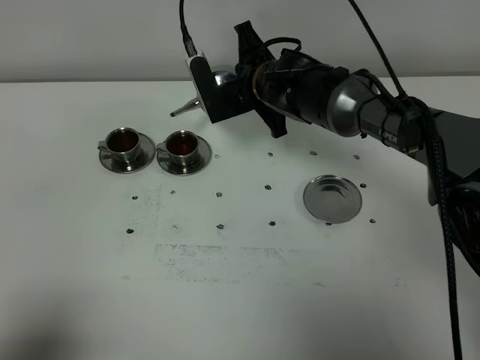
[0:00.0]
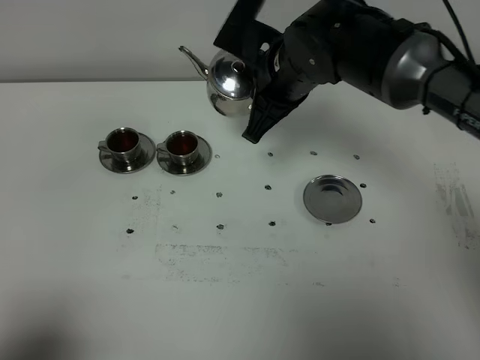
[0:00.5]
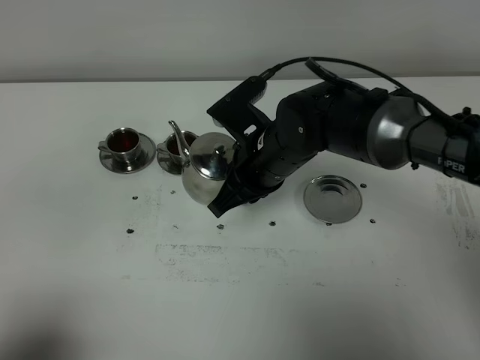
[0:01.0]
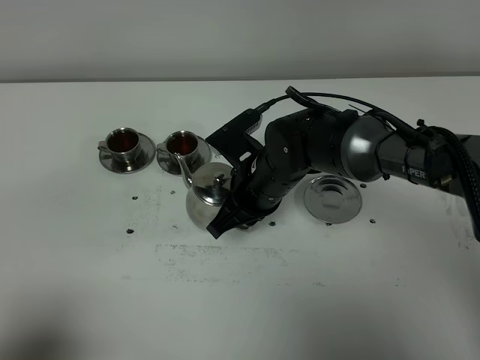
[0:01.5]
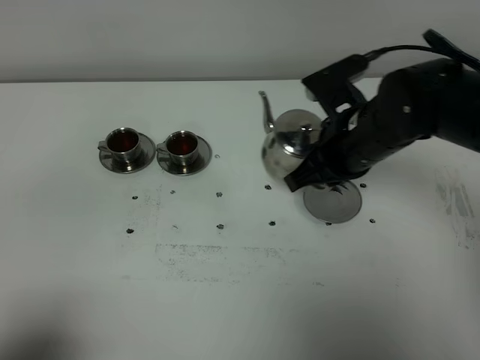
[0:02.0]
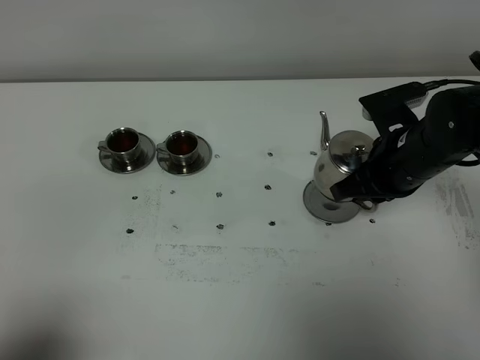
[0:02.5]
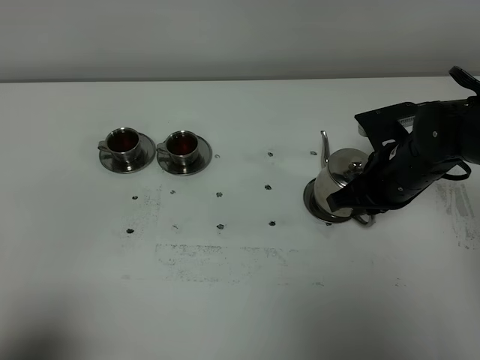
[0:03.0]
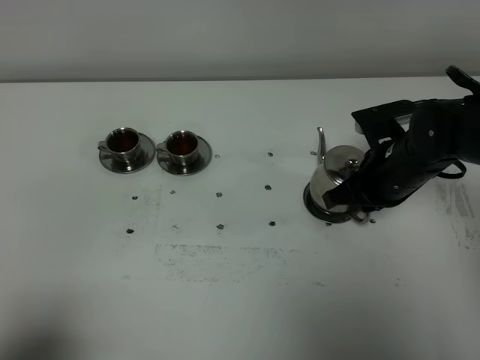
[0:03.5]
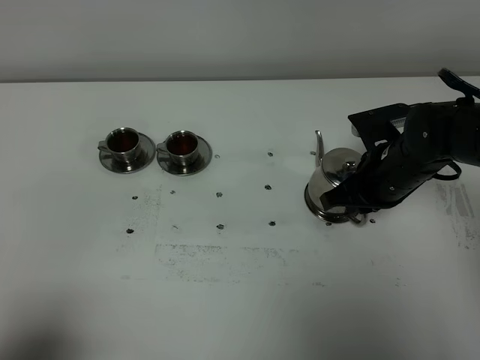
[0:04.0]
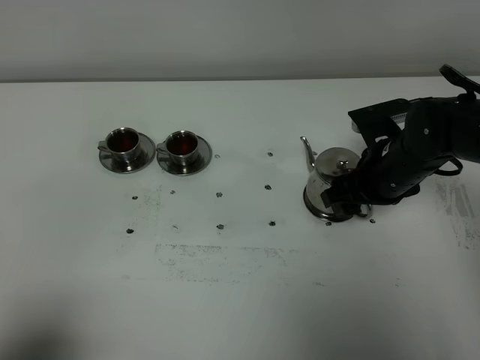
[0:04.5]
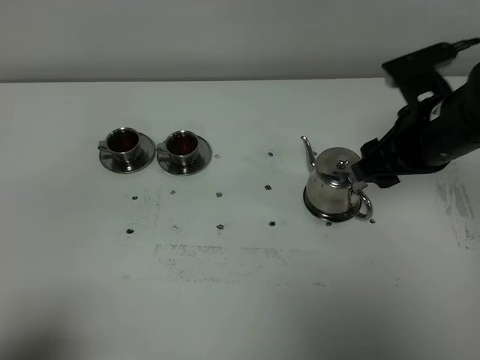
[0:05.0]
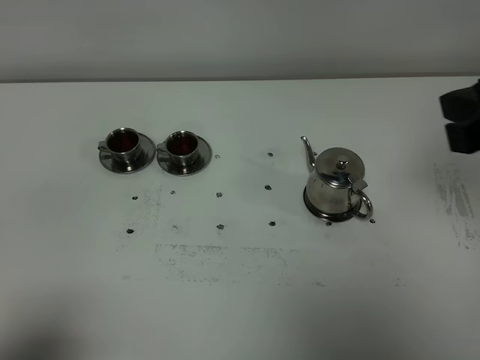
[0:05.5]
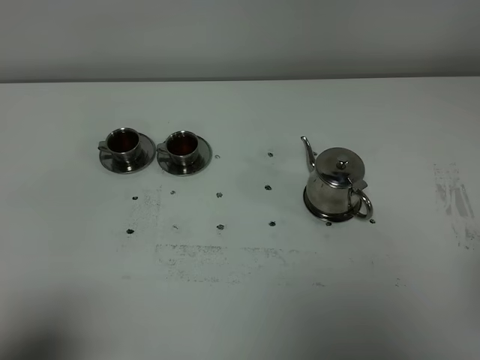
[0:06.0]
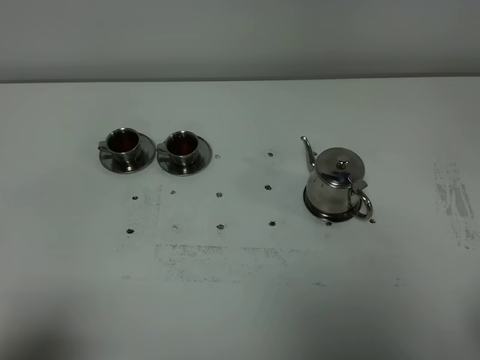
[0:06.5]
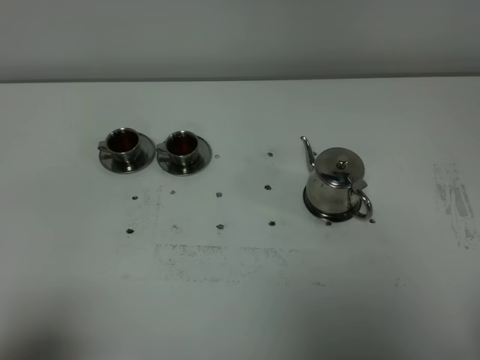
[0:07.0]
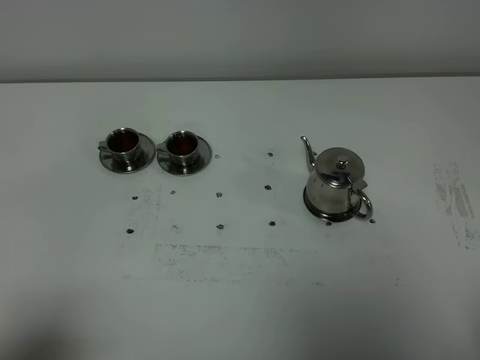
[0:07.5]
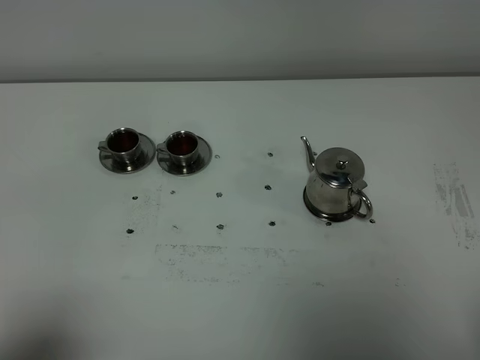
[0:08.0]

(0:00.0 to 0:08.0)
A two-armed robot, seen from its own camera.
Task of the whole recording: grasp the stainless steel teapot and pour the tea into the two stainless steel teacups one by one, put the stainless steel teapot back in its original place.
0:00.0 - 0:02.0: The right gripper moves backward and to the right, roughly 15 cm.
0:02.0 - 0:04.0: The right gripper moves downward, roughly 5 cm.
0:04.0 - 0:06.0: The right gripper heads backward and upward, covering approximately 35 cm, and opens, then closes once more.

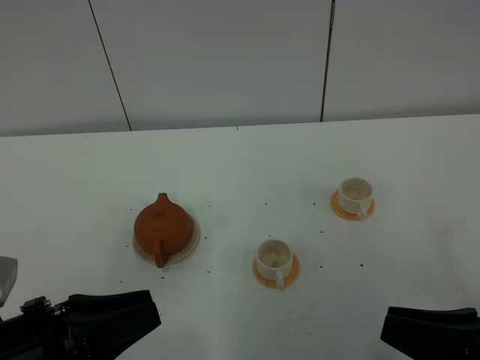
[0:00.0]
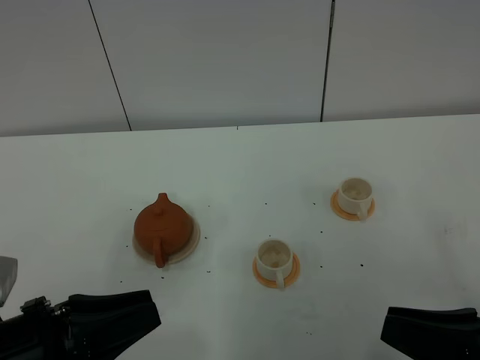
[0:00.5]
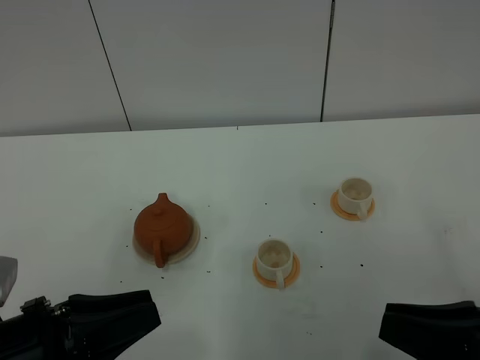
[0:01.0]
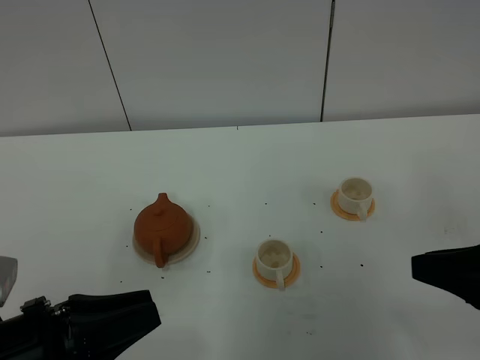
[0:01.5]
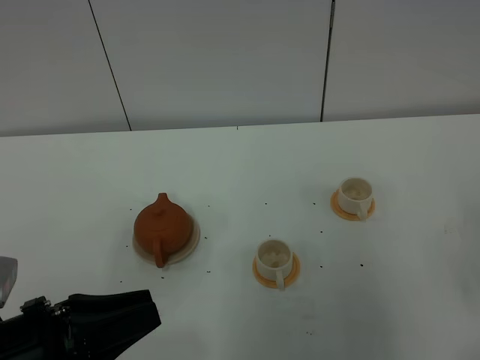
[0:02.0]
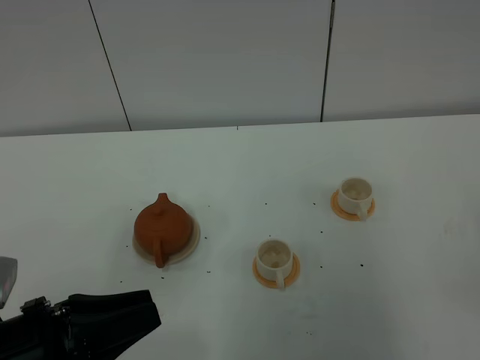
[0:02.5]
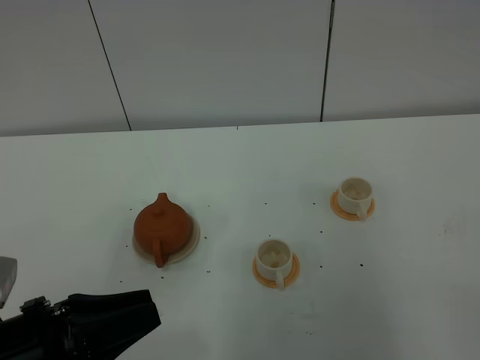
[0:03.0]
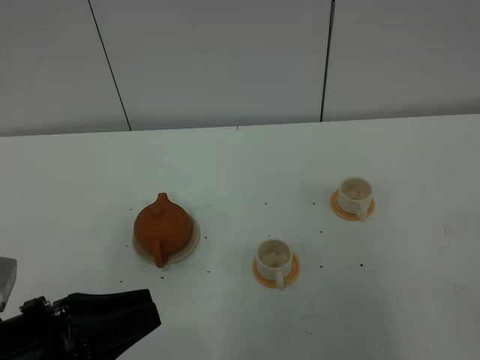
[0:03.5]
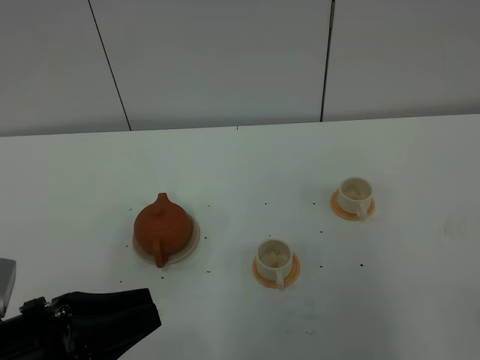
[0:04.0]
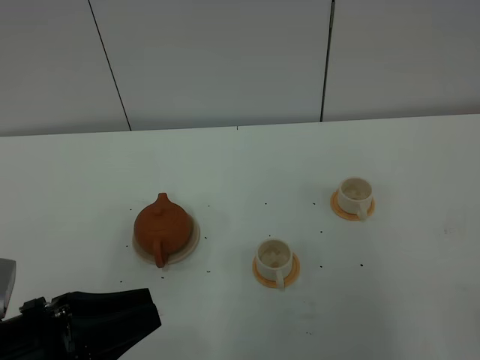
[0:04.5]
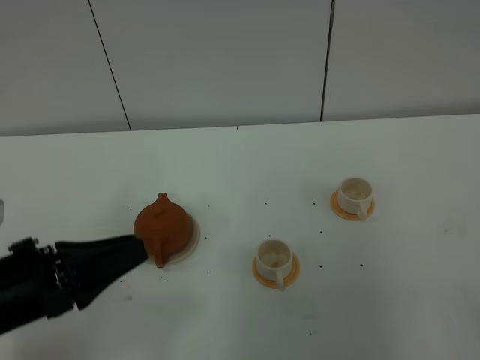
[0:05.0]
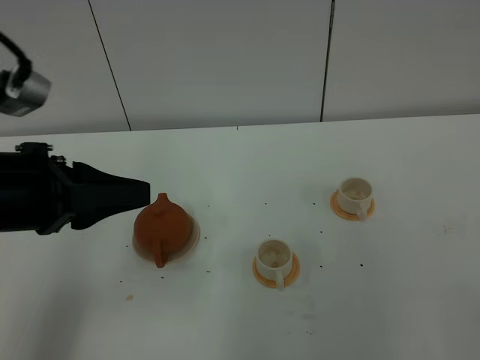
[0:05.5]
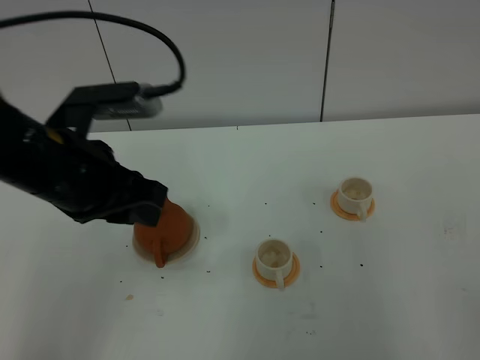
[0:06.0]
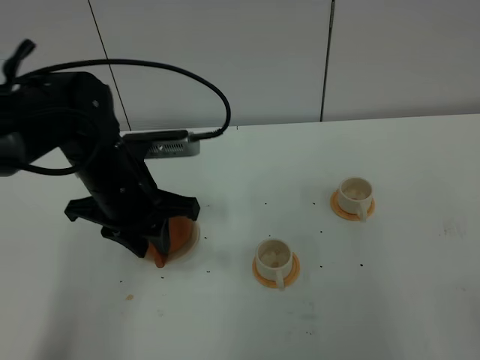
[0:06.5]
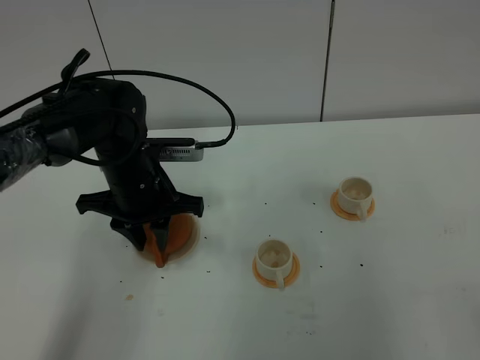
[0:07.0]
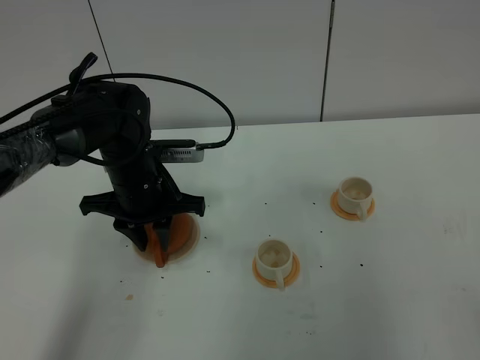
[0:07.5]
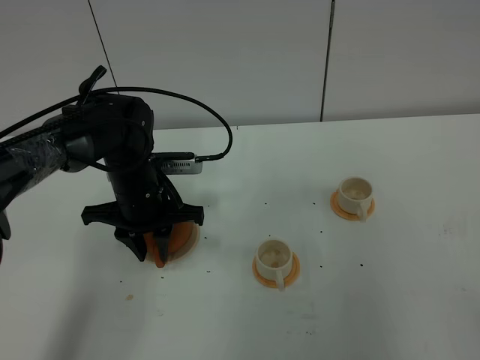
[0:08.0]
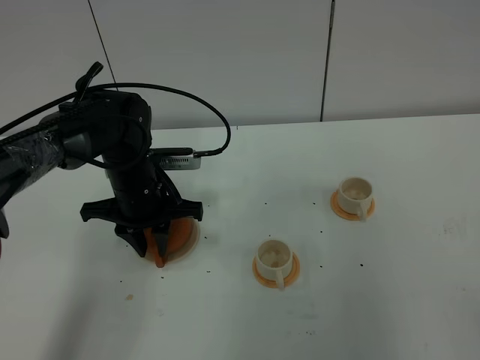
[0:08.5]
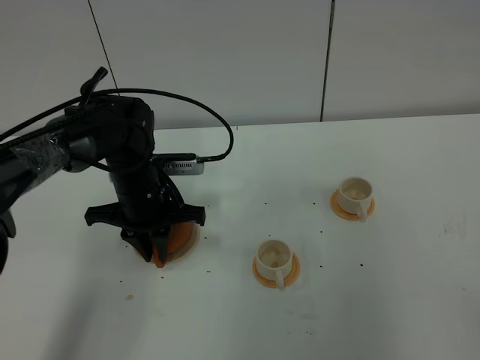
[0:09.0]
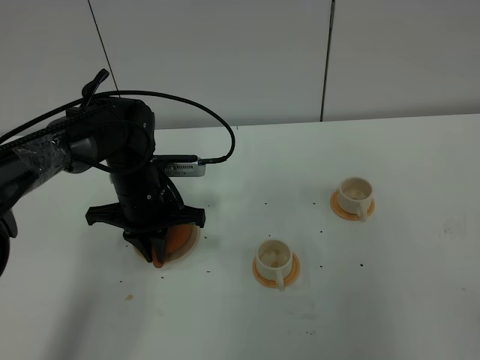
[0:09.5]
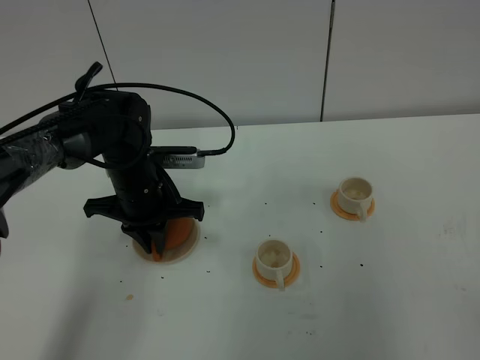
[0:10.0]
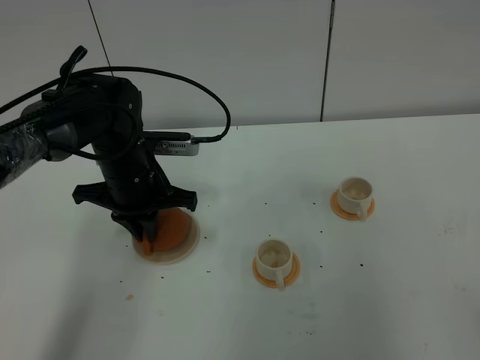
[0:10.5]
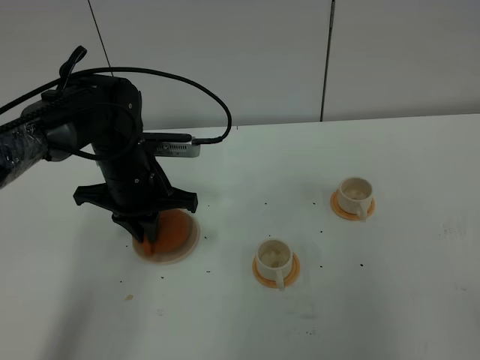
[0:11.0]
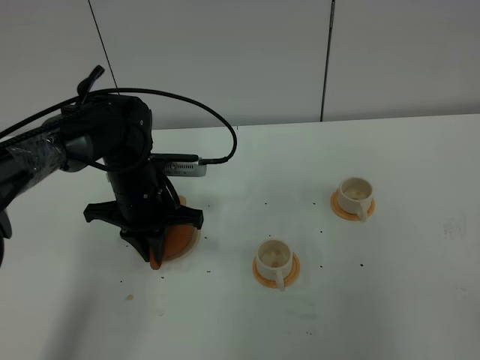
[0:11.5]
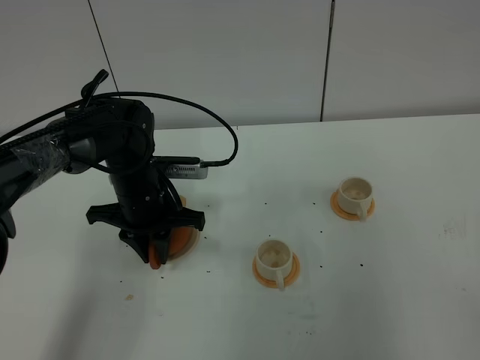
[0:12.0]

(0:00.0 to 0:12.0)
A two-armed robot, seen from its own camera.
Task of the whole recording: grasp the brown teapot and pour the tea into the two white teacups one by one, put the brown teapot back in its original place.
0:00.0 - 0:02.0: The right gripper is displaced to the right by about 5 cm.
0:04.0 - 0:06.0: The left gripper heads forward and upward, covering approximately 20 cm.
0:06.0 - 0:08.0: The left gripper moves downward and forward, some 20 cm.
0:08.0 - 0:10.0: The left gripper closes its fingers.
0:10.0 - 0:12.0: The left gripper opens its fingers.

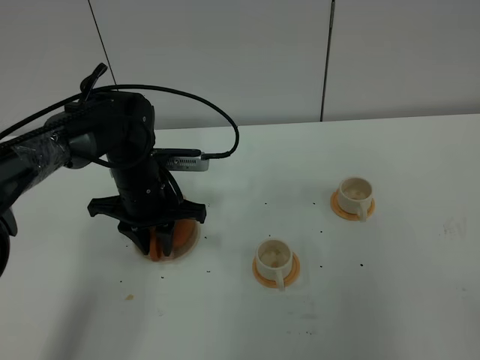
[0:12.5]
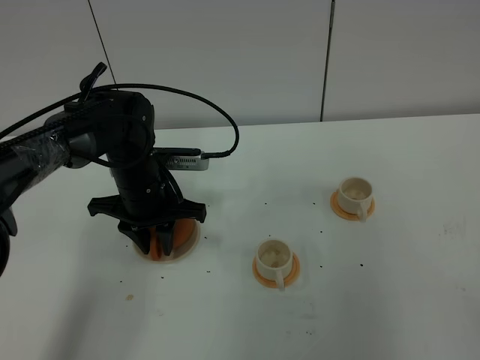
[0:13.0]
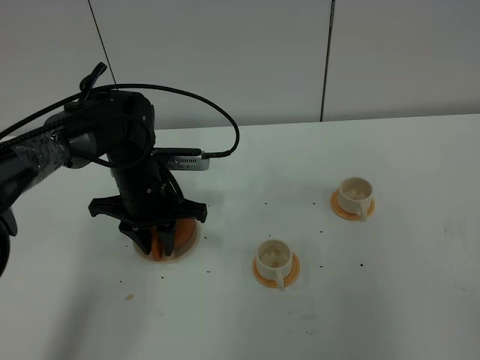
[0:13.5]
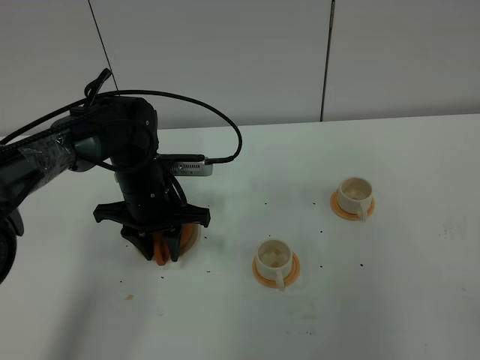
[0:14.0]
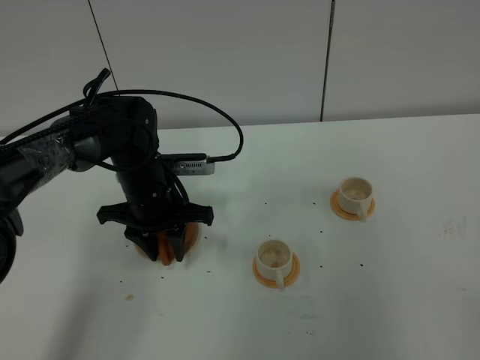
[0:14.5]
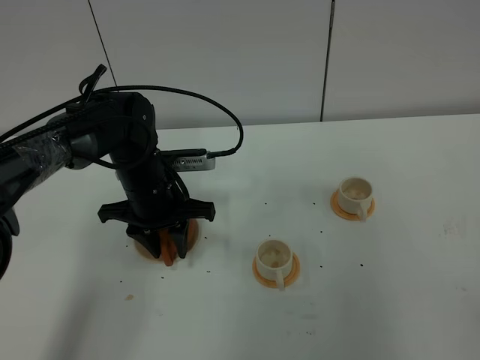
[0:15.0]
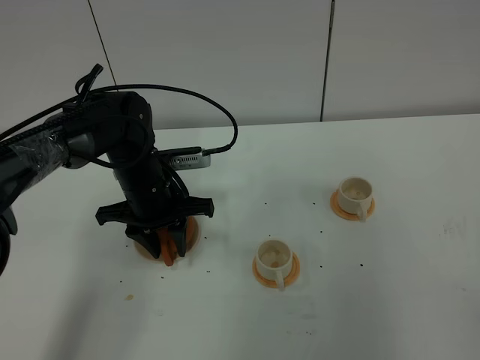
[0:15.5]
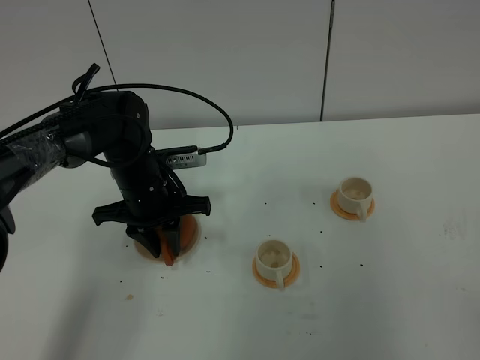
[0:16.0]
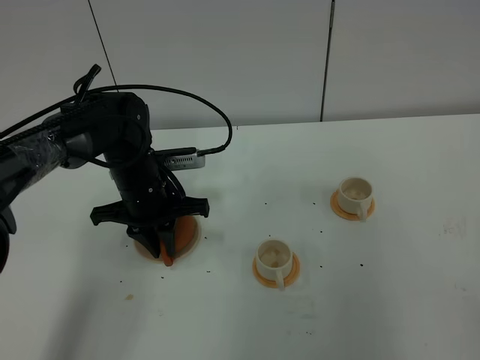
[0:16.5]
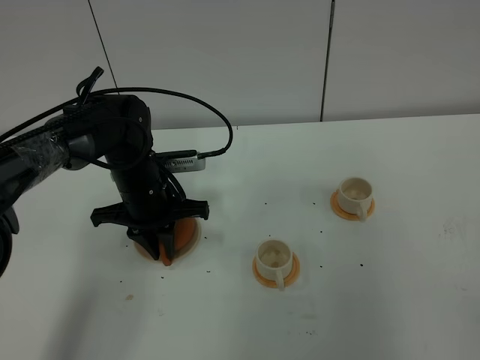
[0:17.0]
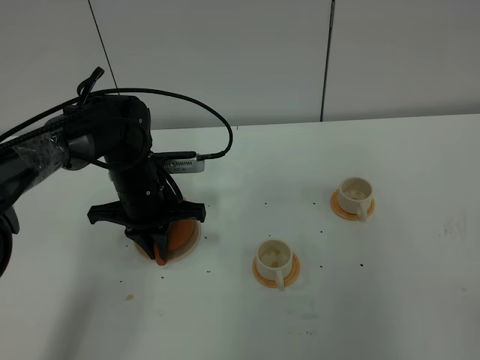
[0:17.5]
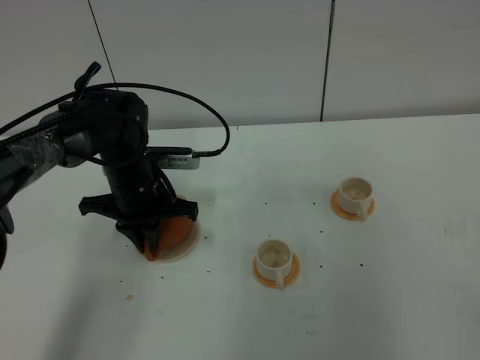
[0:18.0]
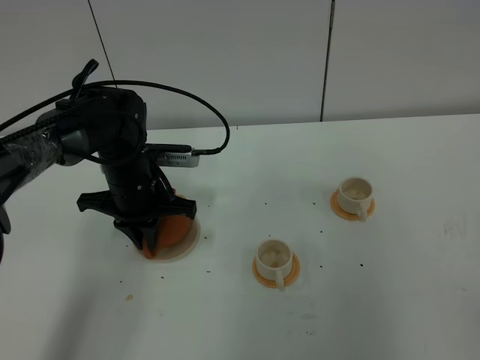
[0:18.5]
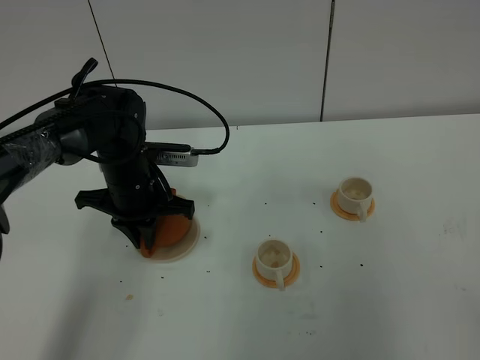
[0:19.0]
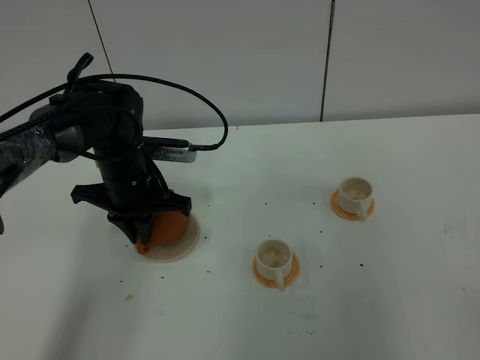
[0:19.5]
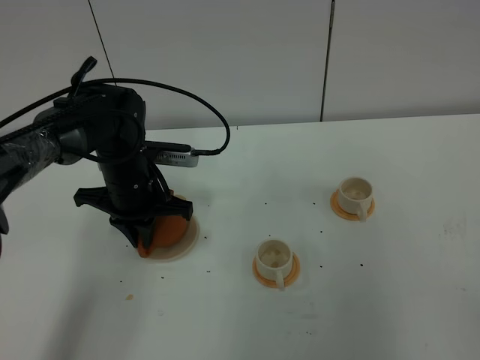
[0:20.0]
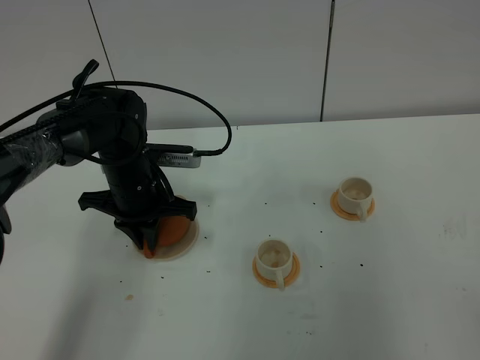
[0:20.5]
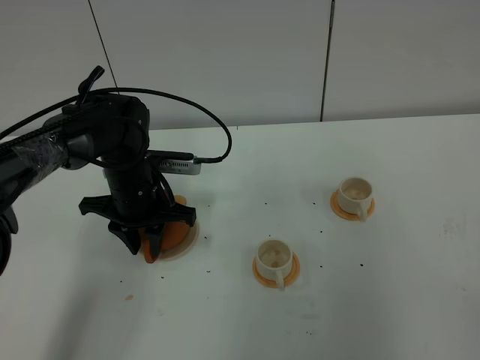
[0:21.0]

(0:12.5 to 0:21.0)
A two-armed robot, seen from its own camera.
Task of the whole recording: grasp the brown teapot and pour the tea into the two white teacups one by one, put the brown teapot back in its original place.
0:12.5 - 0:14.5: Both grippers stay put.
0:14.5 - 0:16.5: The left gripper closes its fingers.
0:16.5 - 0:19.0: The grippers make only small movements.
0:19.0 - 0:21.0: The left gripper opens up.
